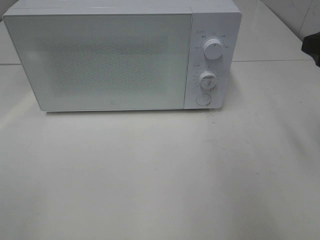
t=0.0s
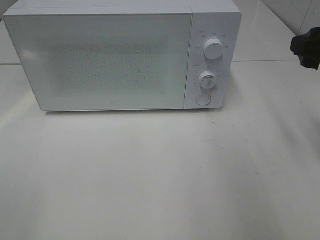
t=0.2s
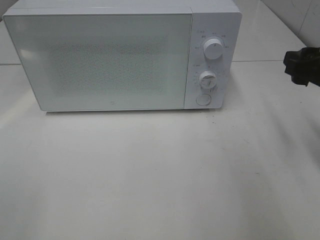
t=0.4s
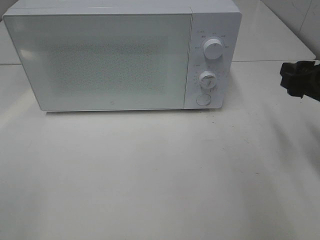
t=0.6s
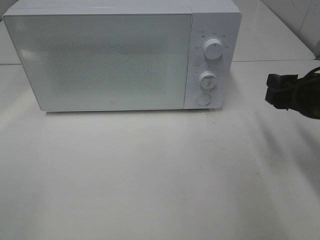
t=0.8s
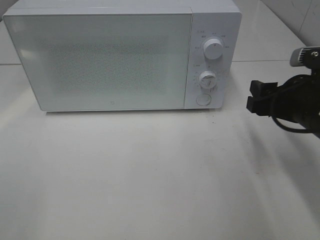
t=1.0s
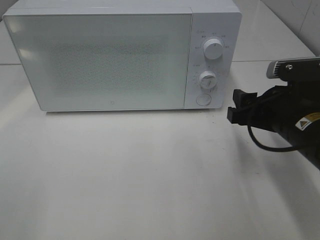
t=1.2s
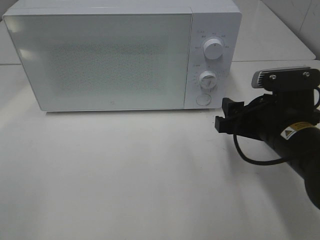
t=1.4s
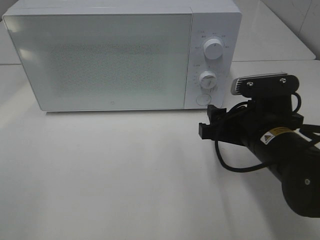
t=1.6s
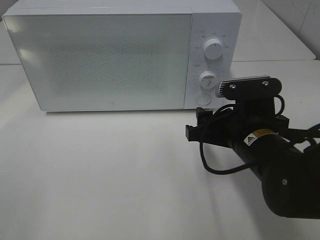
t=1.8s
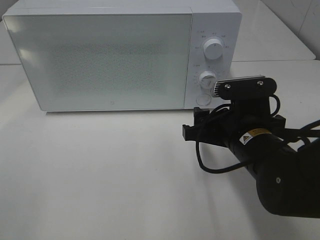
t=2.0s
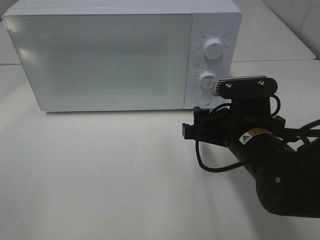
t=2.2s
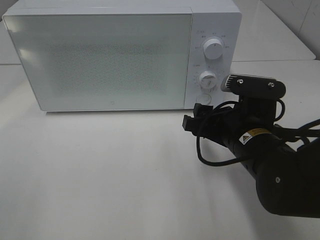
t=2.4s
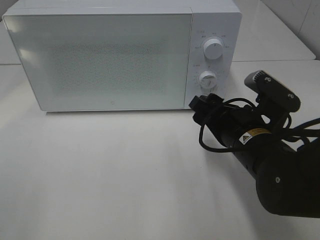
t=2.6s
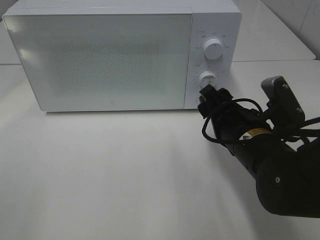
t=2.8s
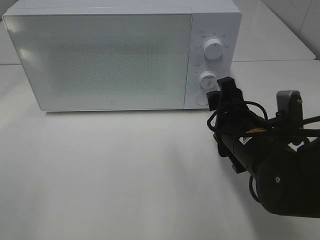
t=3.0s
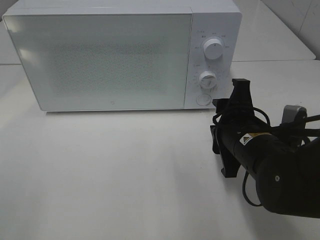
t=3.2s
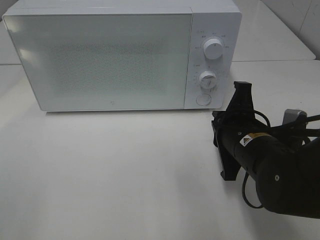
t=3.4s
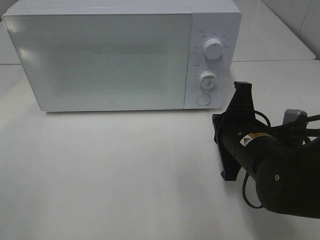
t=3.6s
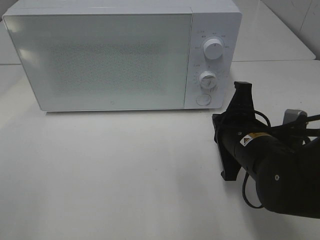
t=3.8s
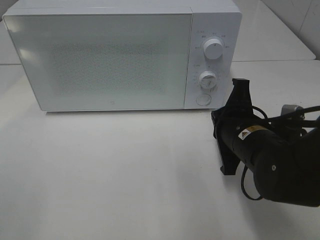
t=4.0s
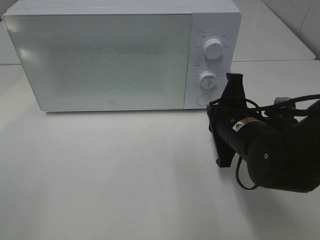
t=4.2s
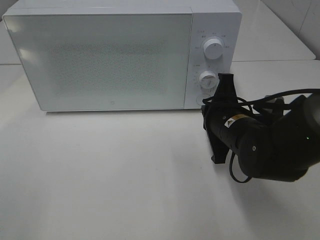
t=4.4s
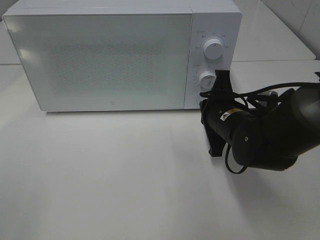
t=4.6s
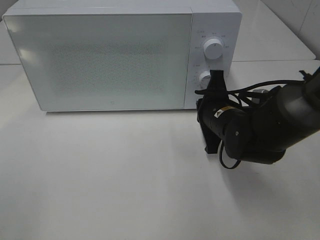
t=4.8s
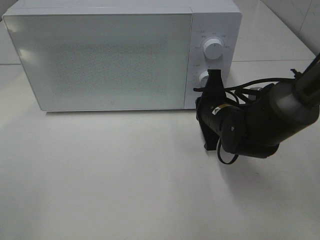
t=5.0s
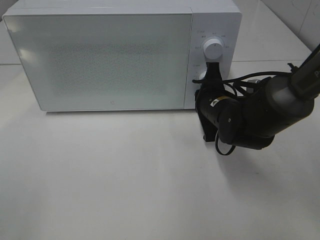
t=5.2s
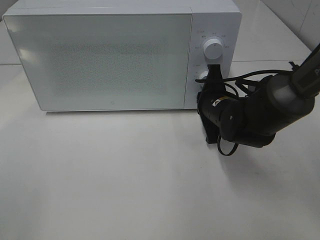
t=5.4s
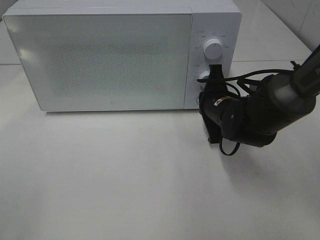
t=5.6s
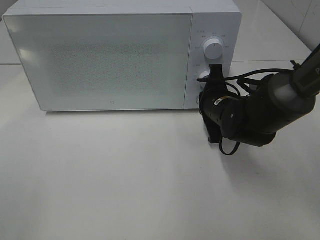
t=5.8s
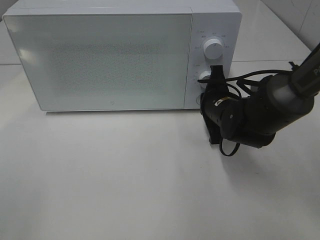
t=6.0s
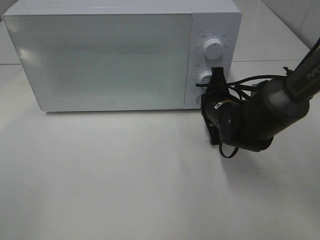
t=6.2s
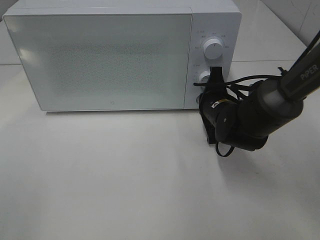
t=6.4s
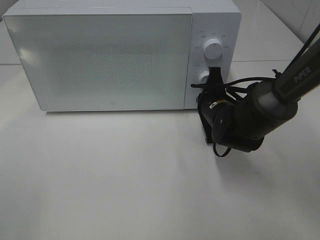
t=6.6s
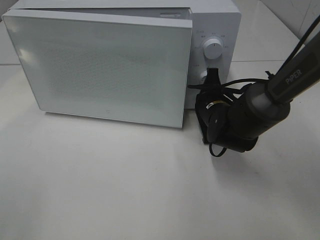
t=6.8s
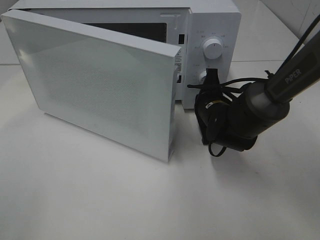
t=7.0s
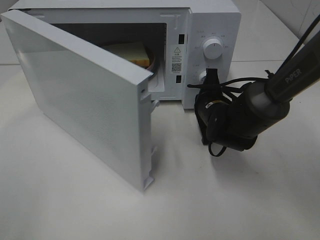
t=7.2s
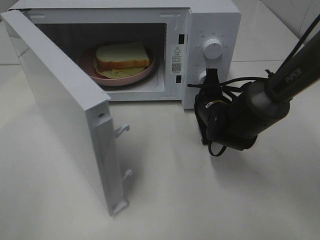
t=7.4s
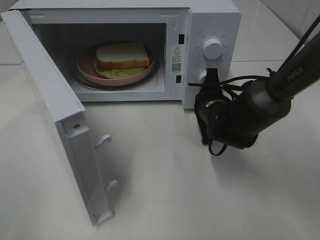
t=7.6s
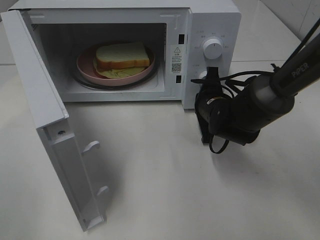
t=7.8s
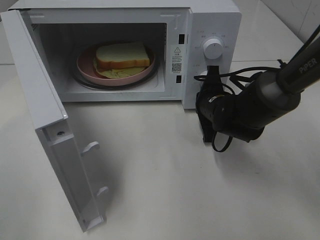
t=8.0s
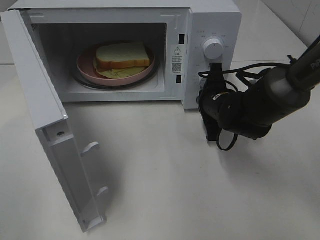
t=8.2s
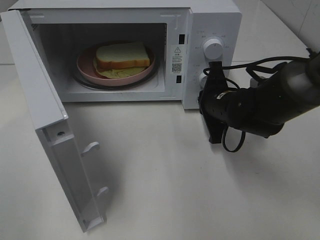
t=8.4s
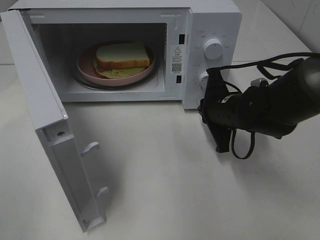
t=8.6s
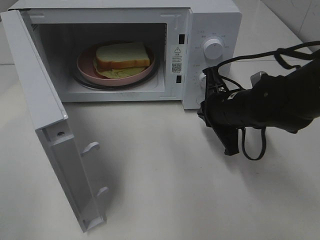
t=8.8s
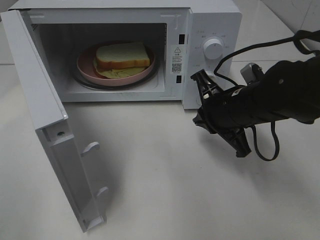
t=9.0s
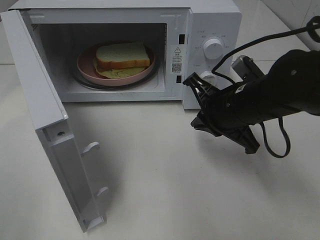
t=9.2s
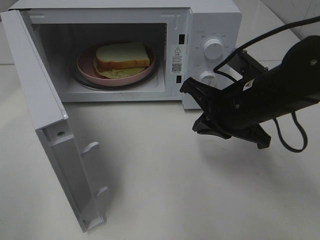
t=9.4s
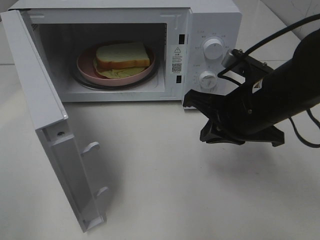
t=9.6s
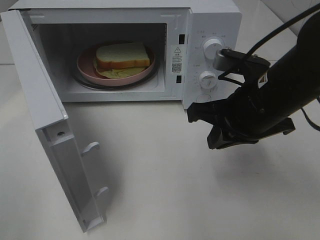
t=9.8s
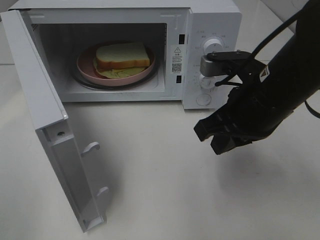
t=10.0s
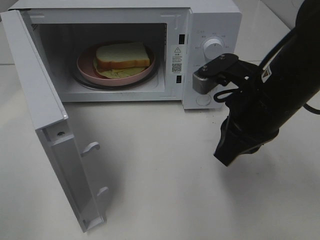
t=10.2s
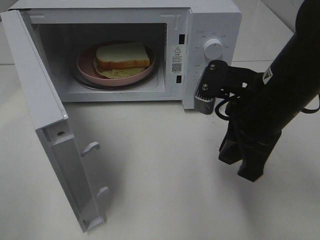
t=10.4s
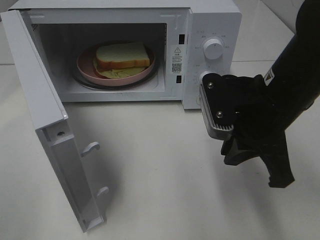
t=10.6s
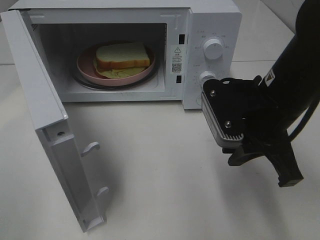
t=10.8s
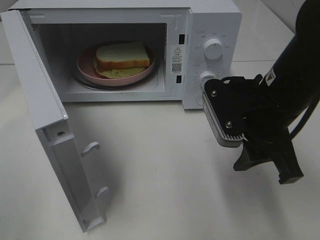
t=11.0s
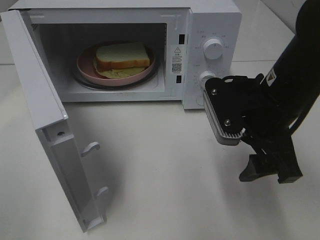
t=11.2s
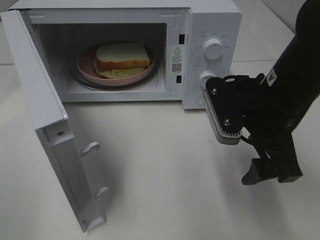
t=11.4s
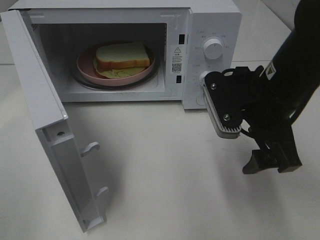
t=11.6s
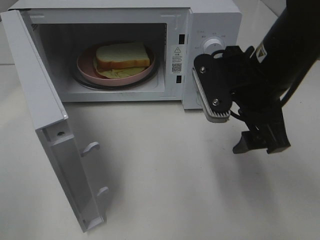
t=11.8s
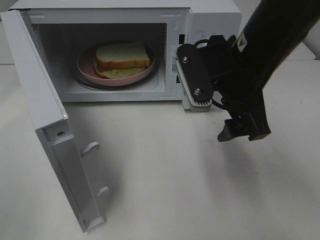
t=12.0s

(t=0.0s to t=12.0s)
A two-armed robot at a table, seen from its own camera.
Task of the whole recording: Heat Sandwich.
Step, t=0.0s - t=8.4s: Right hand: press the switch.
t=0.0s - t=1.6s: The right gripper heads downward and to the left, covering some 20 cm.
t=3.0s - t=4.4s: The right gripper moves about 5 cm, and closes its fingers.
t=4.4s - t=6.0s: The right gripper is displaced forward by some 5 cm.
t=7.6s - t=9.0s: The right gripper shifts approximately 10 cm upward and backward.
t=9.0s - t=10.4s: The right gripper goes about 10 cm upward and backward.
t=10.4s - t=12.0s: The right gripper shifts by about 5 cm, and opens up.

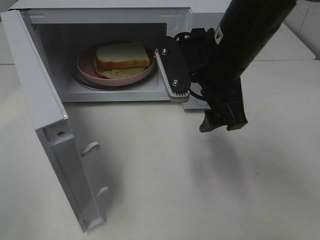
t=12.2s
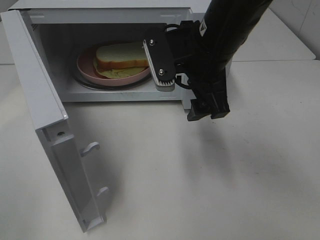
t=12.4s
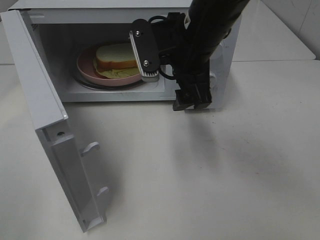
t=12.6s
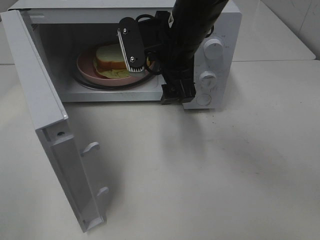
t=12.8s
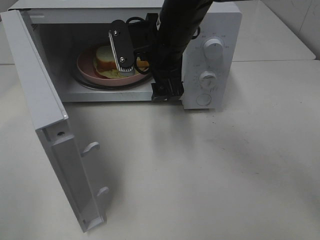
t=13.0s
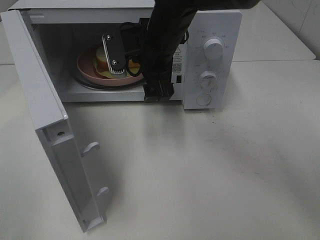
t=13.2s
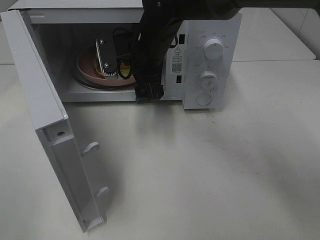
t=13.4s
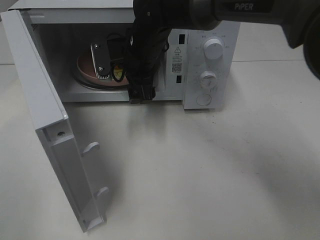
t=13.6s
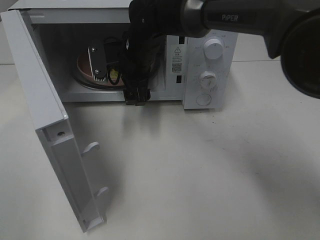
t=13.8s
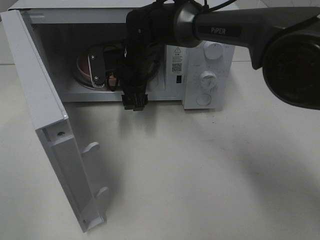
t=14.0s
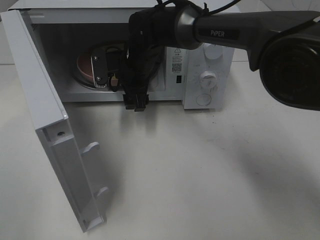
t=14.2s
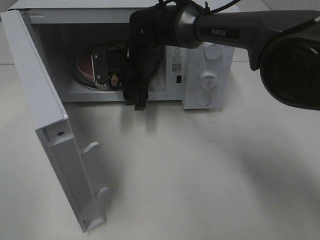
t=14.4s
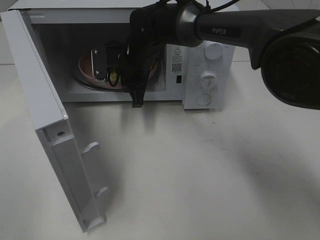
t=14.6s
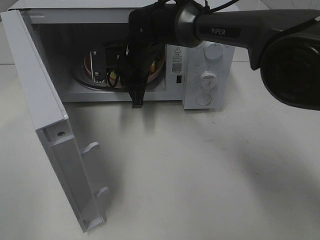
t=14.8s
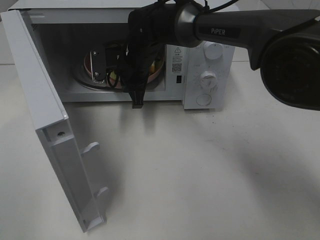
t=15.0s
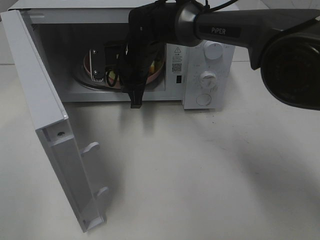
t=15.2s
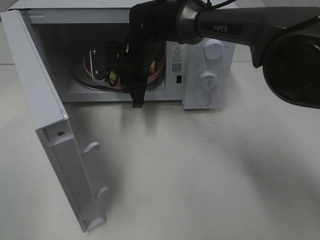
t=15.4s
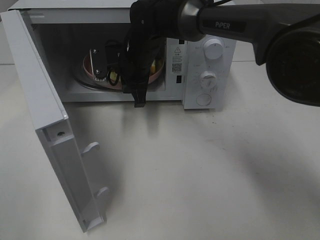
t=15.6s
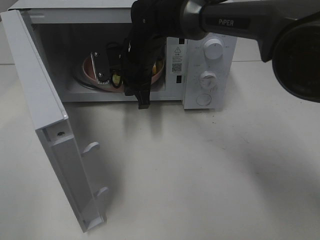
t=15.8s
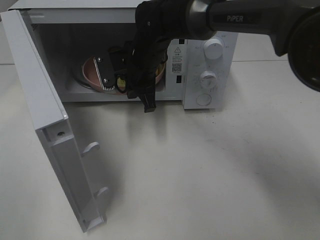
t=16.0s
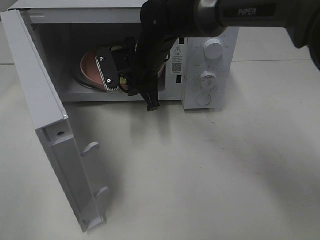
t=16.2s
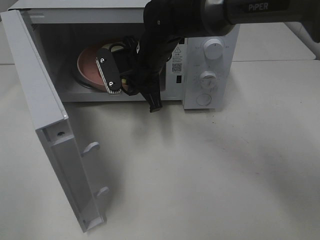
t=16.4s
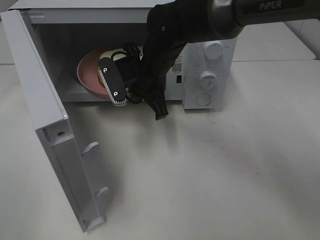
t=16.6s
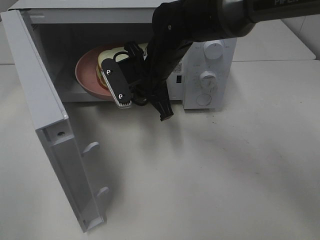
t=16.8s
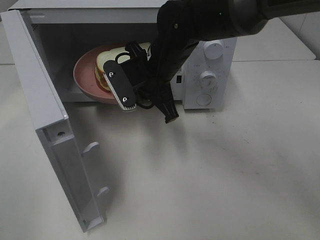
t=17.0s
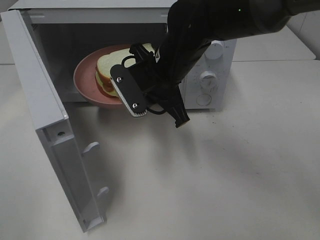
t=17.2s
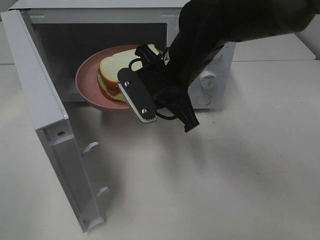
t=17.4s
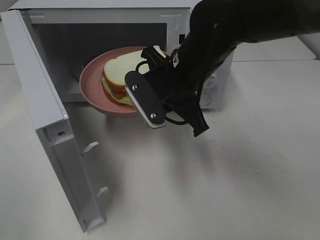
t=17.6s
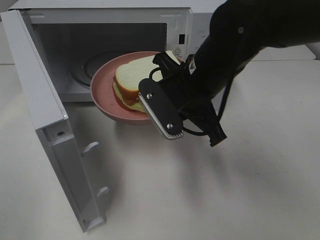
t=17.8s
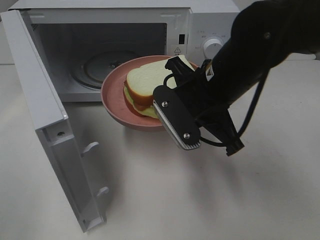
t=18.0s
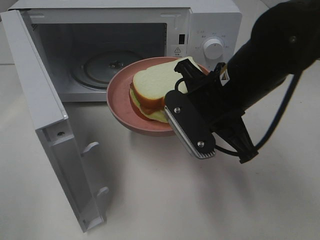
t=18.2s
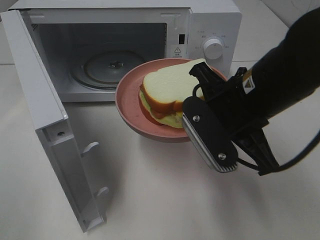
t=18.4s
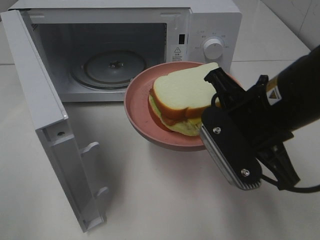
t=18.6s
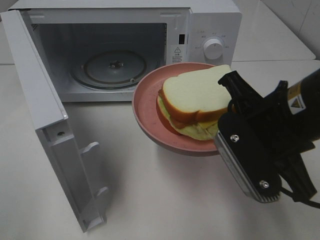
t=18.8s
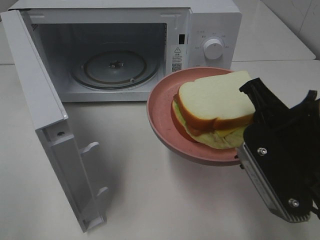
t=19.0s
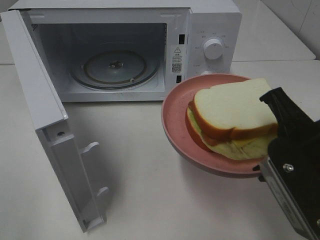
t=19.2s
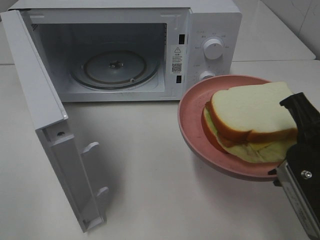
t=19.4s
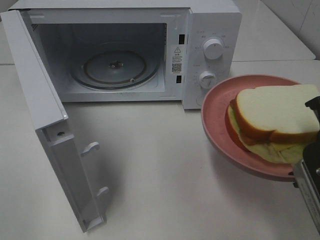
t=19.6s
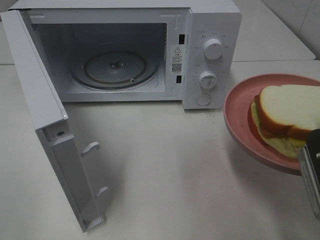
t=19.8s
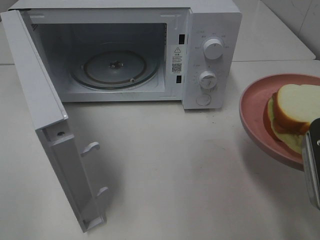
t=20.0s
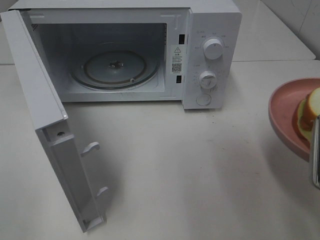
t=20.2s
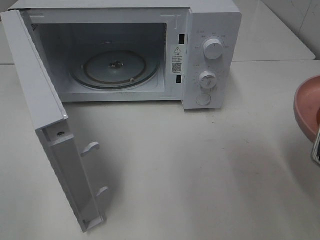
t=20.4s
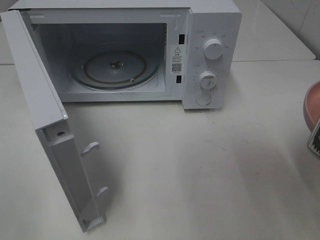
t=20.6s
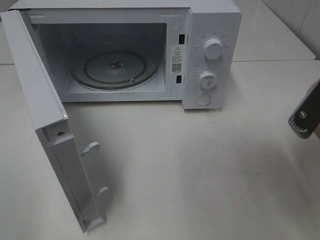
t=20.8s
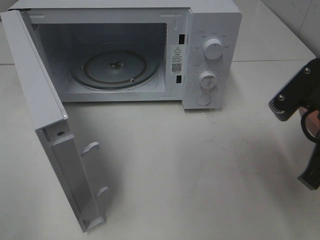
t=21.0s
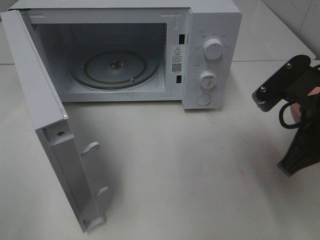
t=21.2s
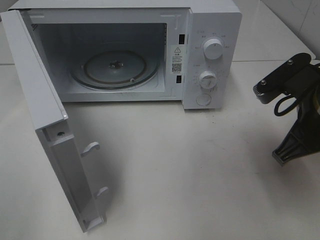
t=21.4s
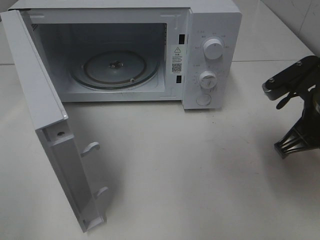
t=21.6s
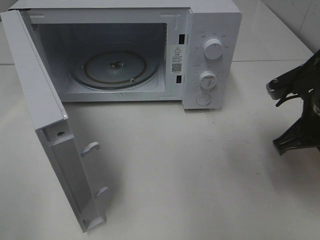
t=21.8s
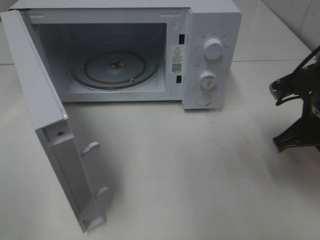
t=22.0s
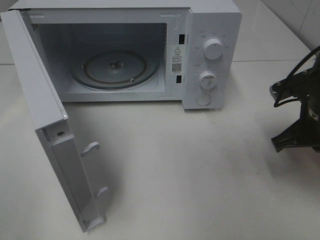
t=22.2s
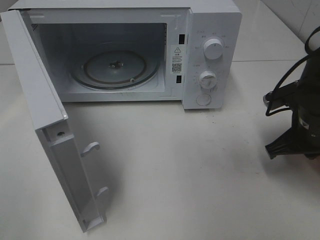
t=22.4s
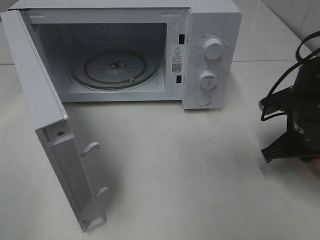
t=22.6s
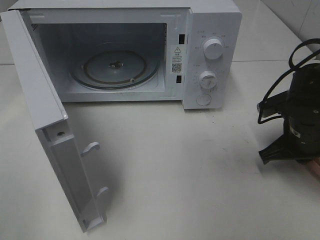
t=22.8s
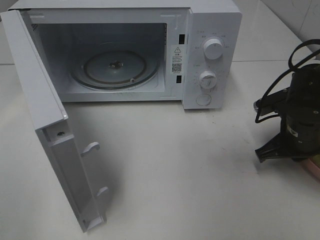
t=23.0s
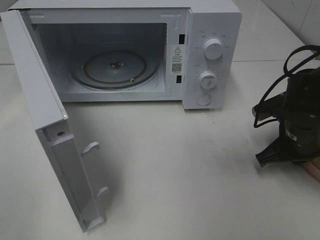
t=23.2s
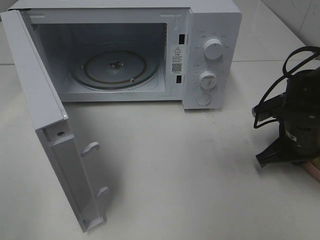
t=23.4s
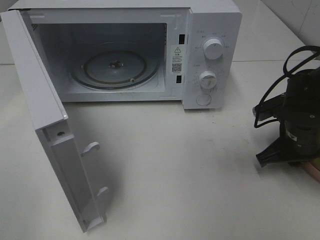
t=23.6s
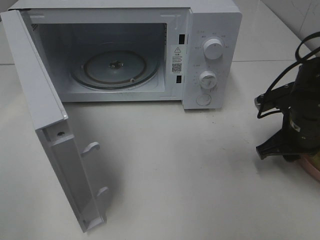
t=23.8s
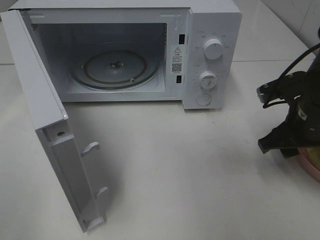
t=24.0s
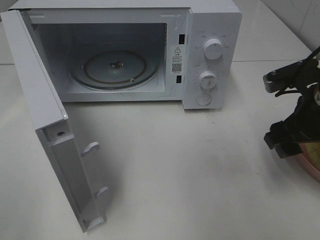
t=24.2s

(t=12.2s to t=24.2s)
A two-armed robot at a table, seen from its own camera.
Task of the whole recording: Heat Sandwich.
Step, t=12.2s - t=14.8s: Right hand: grab the plate with the sandwich.
Step, t=15.0s - t=23.8s: Right hand: place the plate in the microwave.
t=12.2s - t=13.8s: The right gripper heads forward, to the left and downward, covering approximately 20 cm.
t=13.8s - t=15.2s: The right gripper closes up.
t=15.2s - t=16.6s: The right gripper shifts about 5 cm backward.
t=16.6s - t=18.2s: The right gripper shifts roughly 15 cm backward and to the right.
t=18.2s - t=19.8s: The right gripper travels to the right and backward by some 15 cm.
t=19.8s - t=21.2s: The right gripper shifts roughly 5 cm forward.
t=21.2s - t=22.6s: The right gripper travels downward and forward by some 10 cm.
t=22.6s - t=24.2s: The right gripper is displaced upward by approximately 5 cm, and opens.
